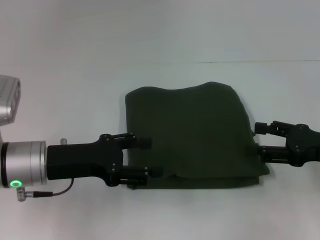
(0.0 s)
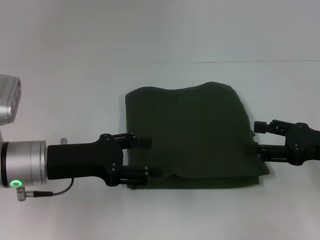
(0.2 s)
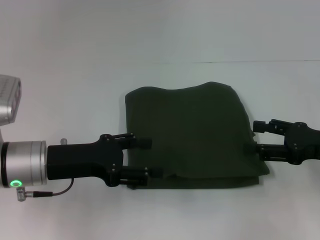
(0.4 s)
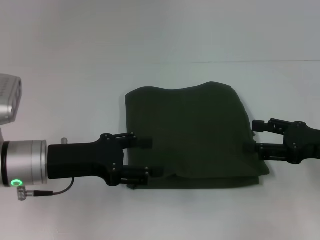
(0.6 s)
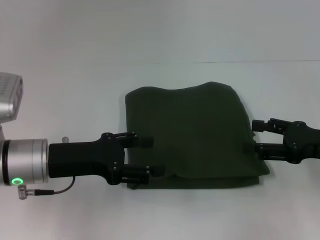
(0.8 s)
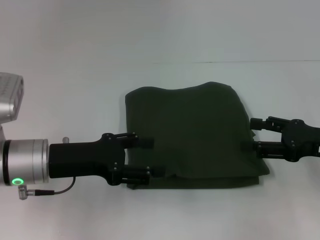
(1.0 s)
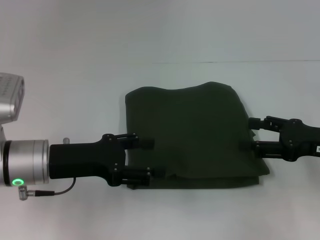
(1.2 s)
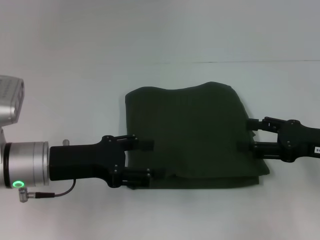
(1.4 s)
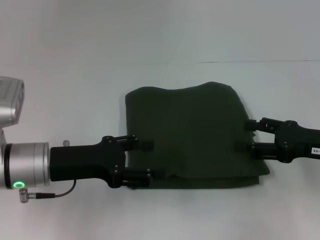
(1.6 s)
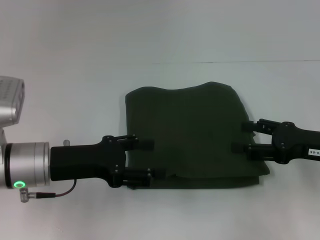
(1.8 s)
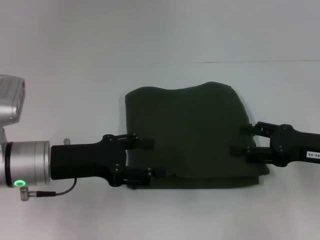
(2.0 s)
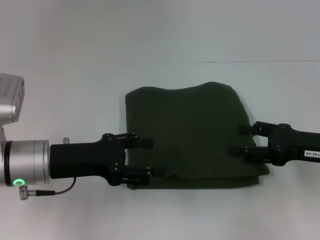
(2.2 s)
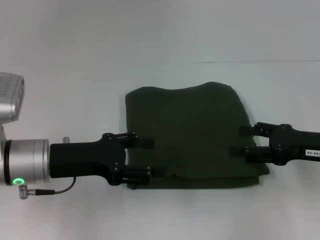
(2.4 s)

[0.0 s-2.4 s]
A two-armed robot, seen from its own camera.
0.0 to 1.2 s: Both grippers stay put.
1.2 to 2.4 s: The grippers stay close to where they were, moving slightly.

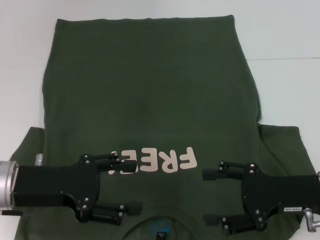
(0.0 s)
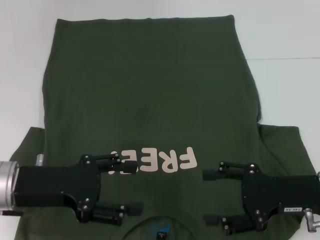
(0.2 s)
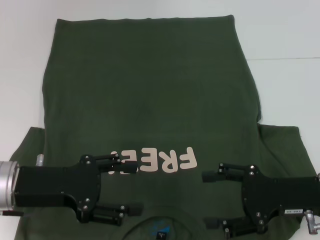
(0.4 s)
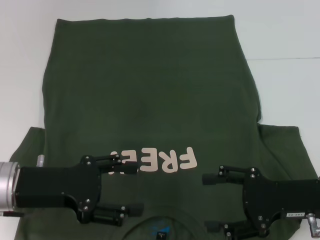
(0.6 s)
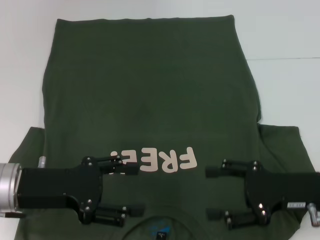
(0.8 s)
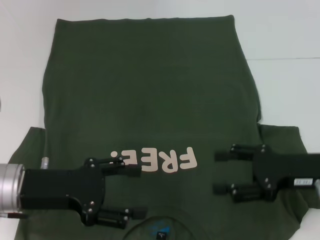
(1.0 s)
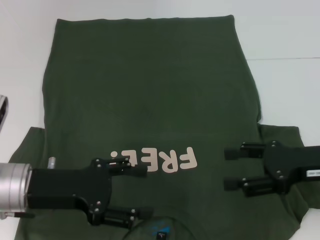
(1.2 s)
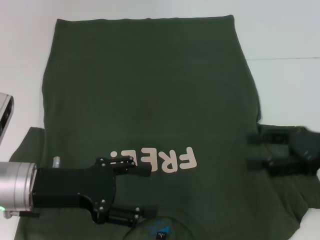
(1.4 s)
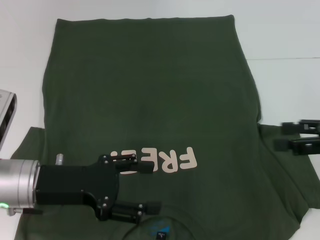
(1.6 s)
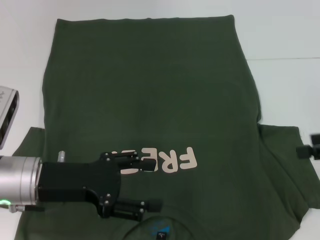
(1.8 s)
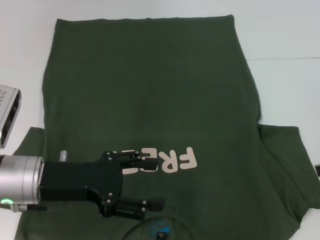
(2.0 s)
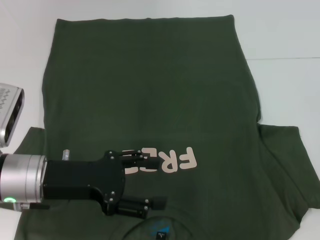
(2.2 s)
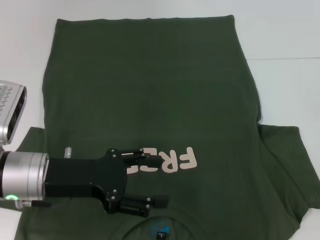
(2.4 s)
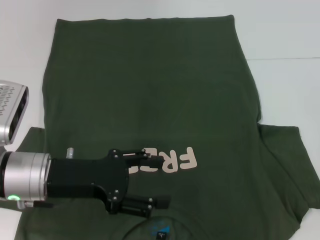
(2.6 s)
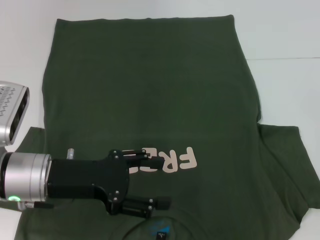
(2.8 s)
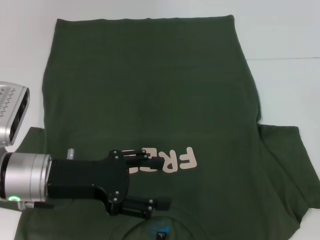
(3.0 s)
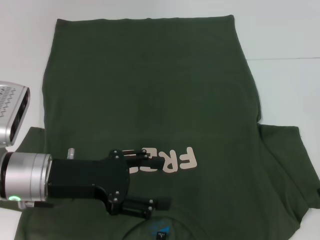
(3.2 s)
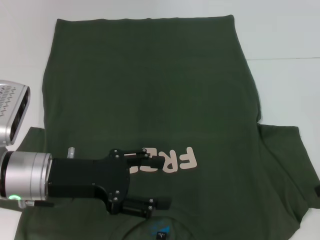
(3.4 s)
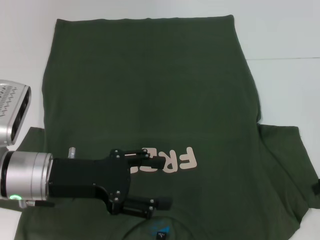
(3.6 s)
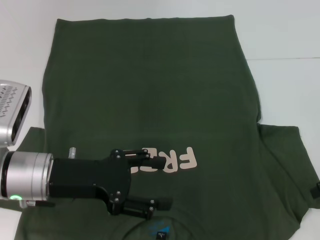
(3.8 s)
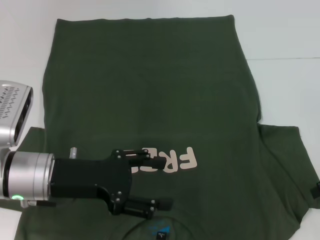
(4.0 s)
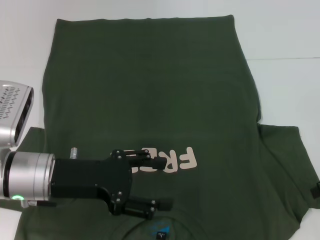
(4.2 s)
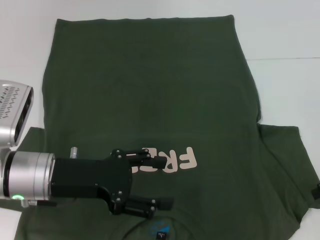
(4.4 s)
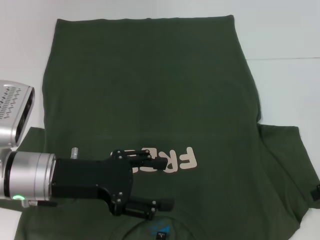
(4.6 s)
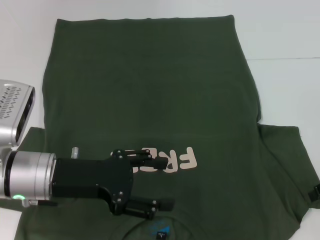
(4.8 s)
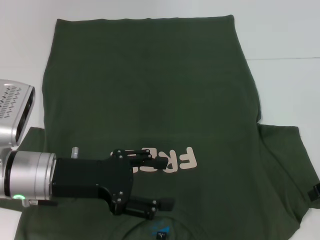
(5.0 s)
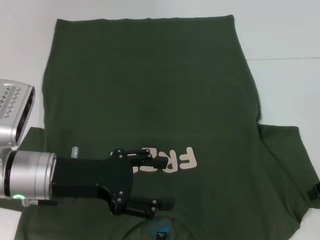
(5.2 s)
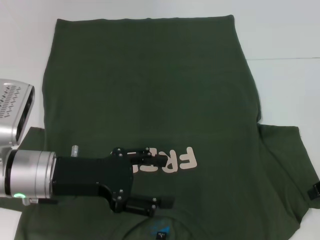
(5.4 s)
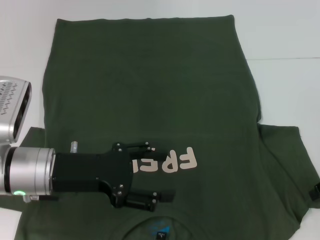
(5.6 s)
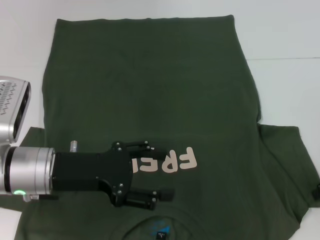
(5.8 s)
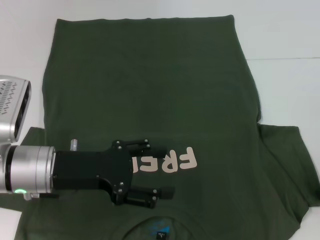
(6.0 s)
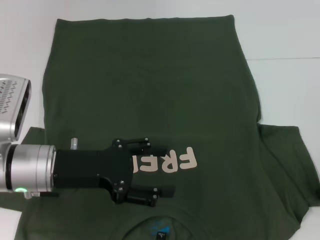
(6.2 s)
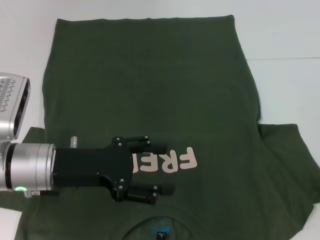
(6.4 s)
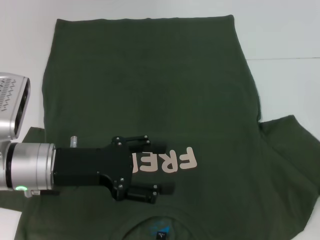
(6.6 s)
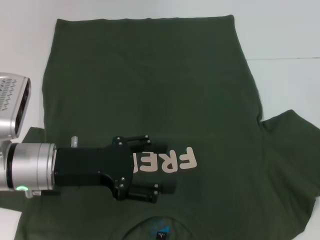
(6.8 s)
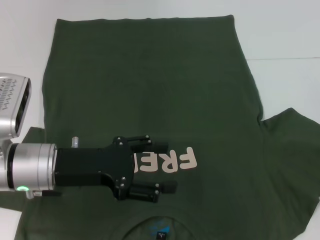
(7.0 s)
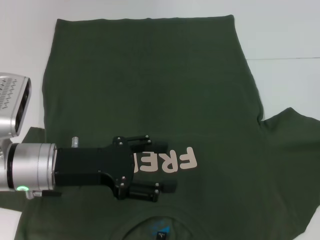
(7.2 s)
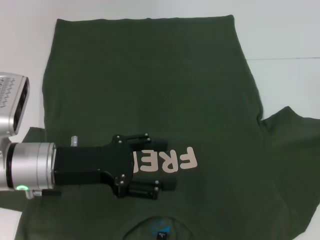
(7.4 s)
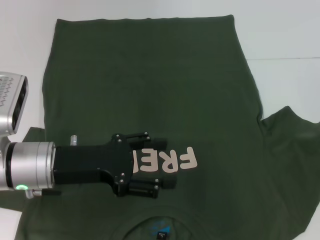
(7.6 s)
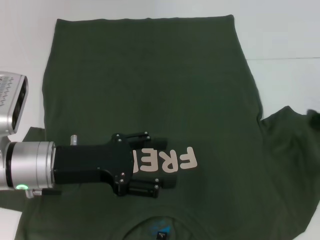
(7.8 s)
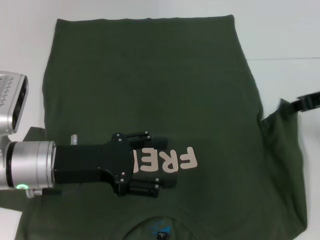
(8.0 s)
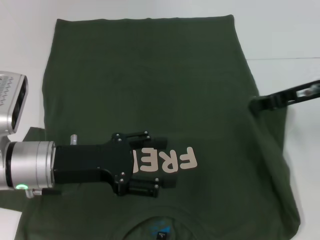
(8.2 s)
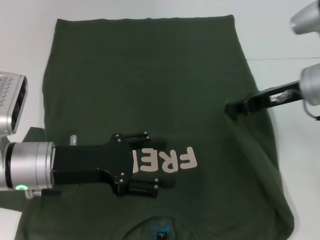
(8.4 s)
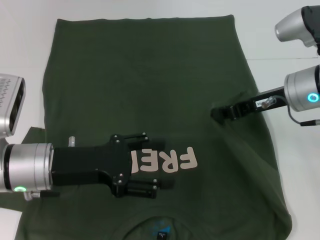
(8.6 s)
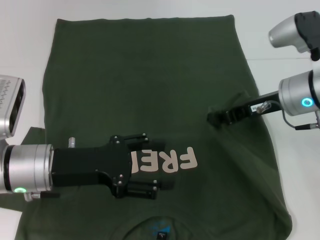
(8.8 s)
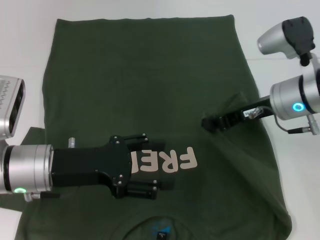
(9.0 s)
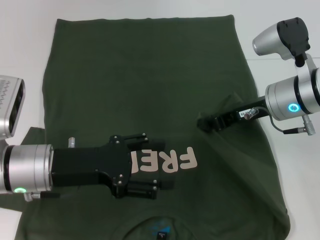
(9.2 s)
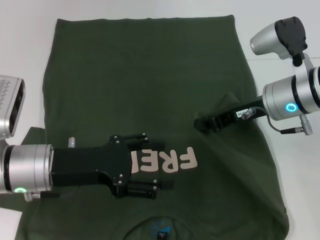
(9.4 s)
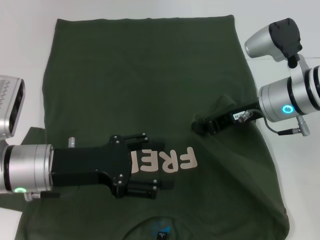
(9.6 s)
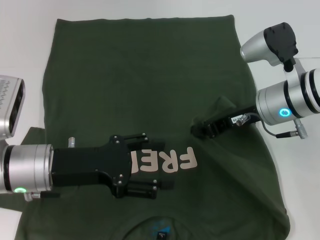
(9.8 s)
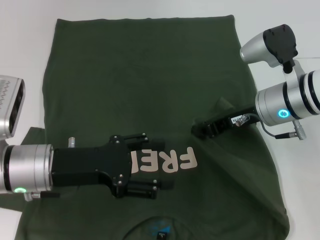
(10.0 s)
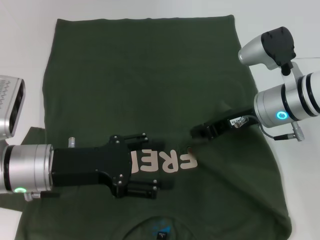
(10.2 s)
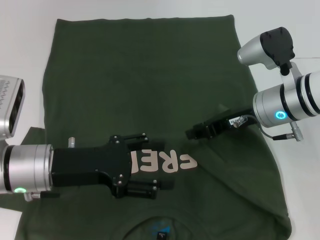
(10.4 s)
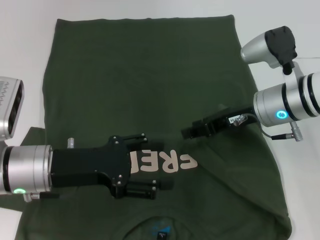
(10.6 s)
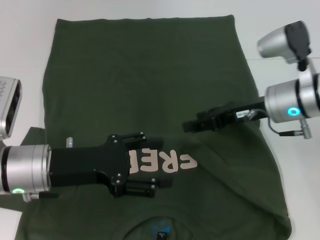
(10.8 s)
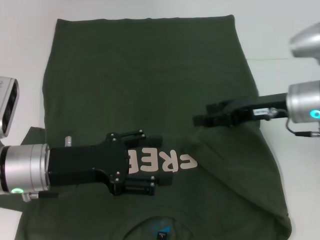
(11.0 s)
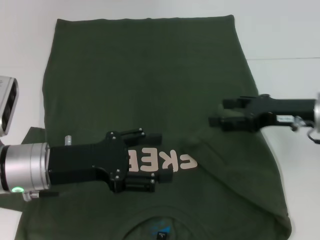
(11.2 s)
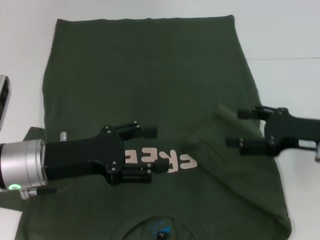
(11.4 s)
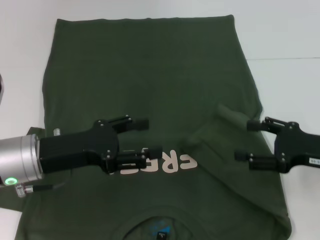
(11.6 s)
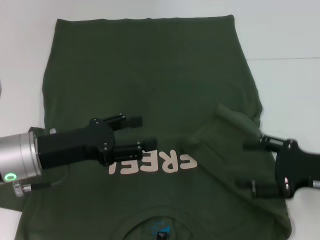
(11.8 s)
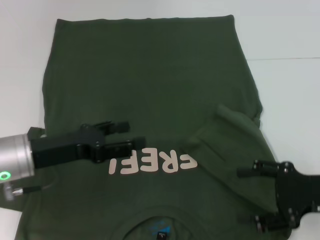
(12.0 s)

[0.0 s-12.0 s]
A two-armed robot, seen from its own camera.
Step, 0.0 to 11.0 s: Fold the bottom right sleeve with your right hand.
0.0 to 1.6 s: The right gripper moves to the right and upward, roughly 10 cm.
3.0 to 4.4 s: The grippers move only a little.
4.4 to 6.0 s: The right gripper closes its fingers.
6.0 to 7.6 s: The right gripper ends up some 5 cm from where it was.
7.6 to 9.0 s: The right gripper is displaced to the left by about 15 cm.
9.0 to 10.4 s: The grippers stay close to where they were, moving slightly.
10.4 to 12.0 s: The right gripper goes approximately 15 cm backward and to the right, and opens its fingers.

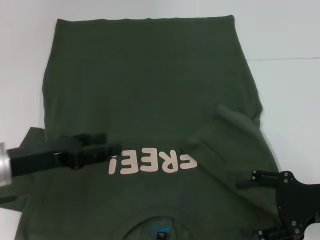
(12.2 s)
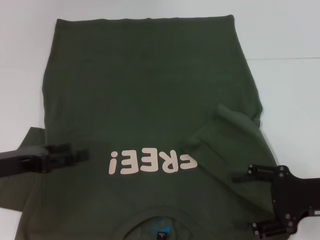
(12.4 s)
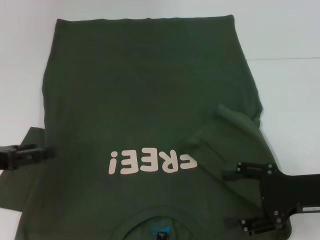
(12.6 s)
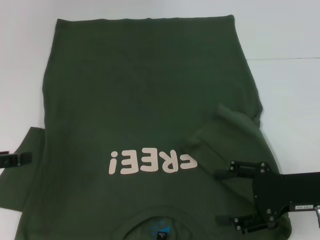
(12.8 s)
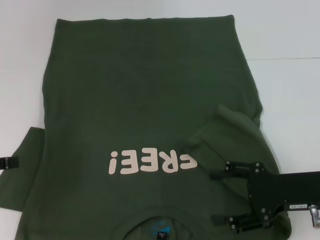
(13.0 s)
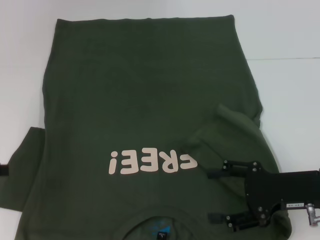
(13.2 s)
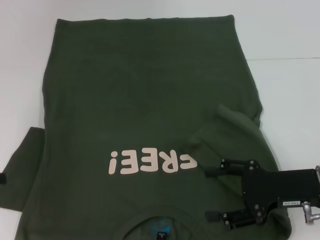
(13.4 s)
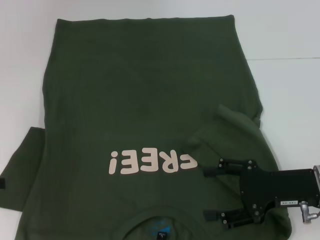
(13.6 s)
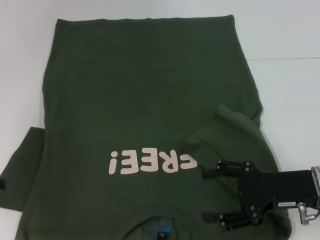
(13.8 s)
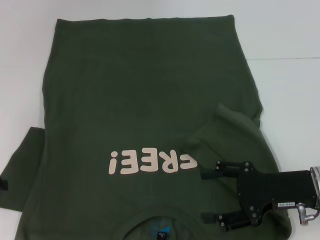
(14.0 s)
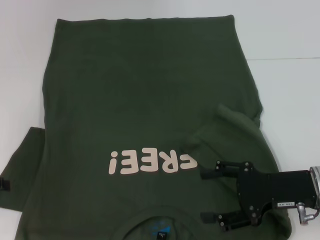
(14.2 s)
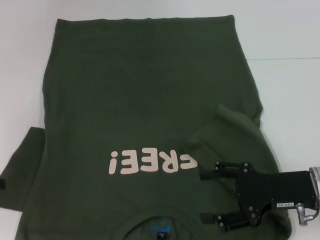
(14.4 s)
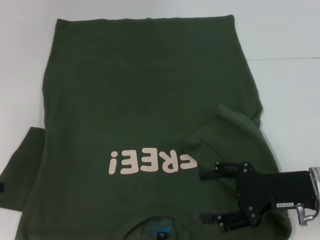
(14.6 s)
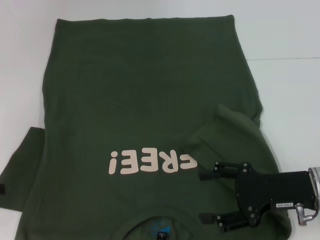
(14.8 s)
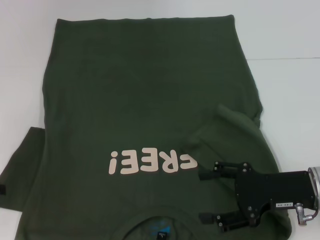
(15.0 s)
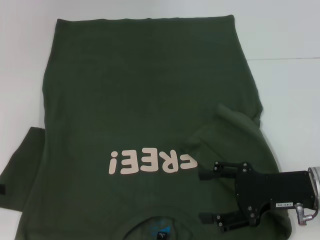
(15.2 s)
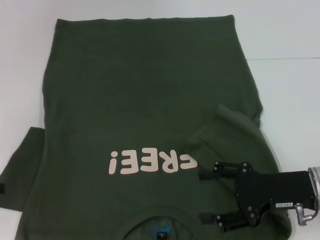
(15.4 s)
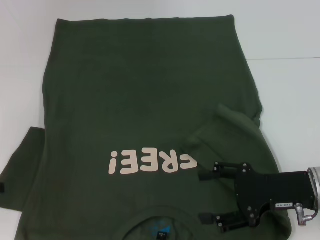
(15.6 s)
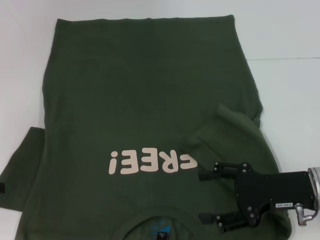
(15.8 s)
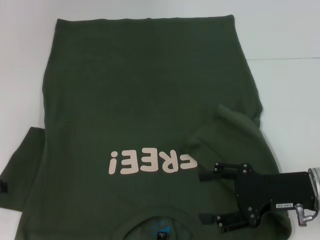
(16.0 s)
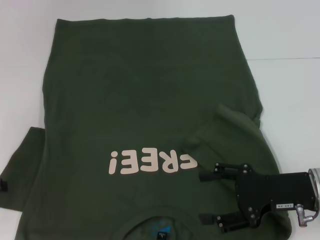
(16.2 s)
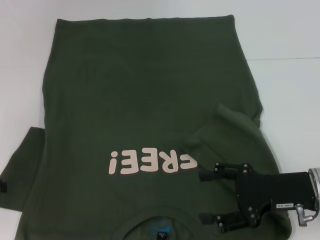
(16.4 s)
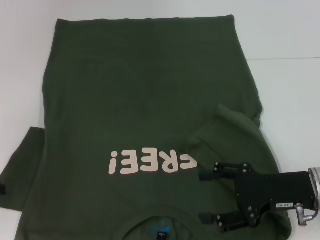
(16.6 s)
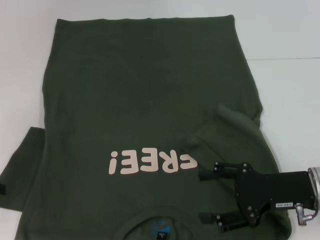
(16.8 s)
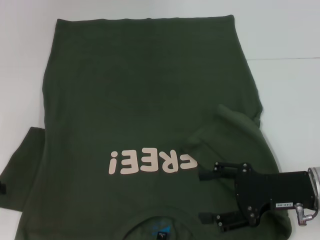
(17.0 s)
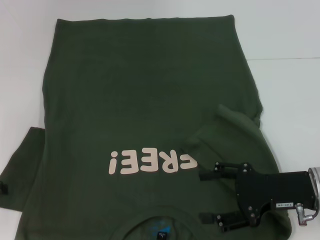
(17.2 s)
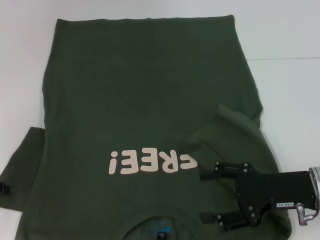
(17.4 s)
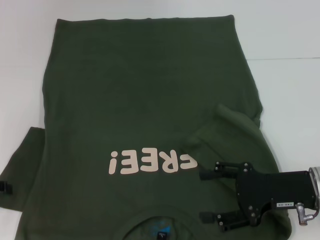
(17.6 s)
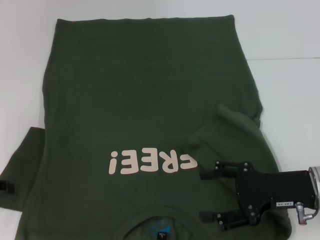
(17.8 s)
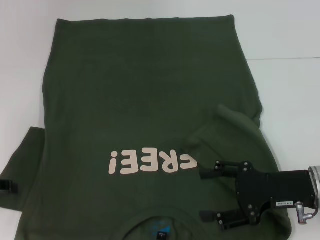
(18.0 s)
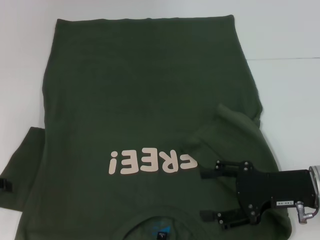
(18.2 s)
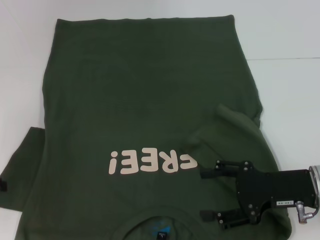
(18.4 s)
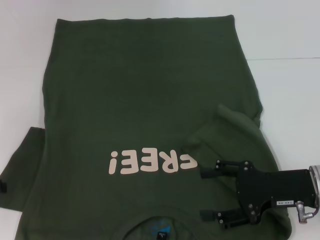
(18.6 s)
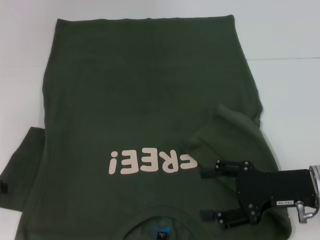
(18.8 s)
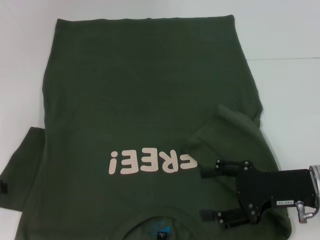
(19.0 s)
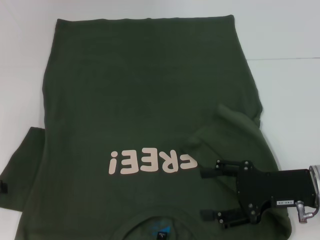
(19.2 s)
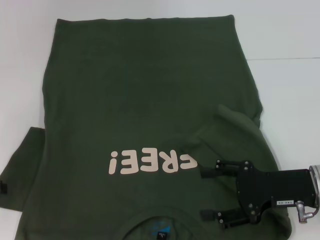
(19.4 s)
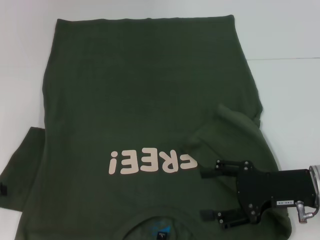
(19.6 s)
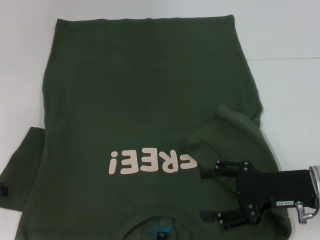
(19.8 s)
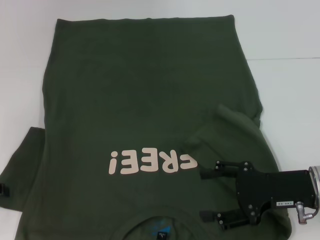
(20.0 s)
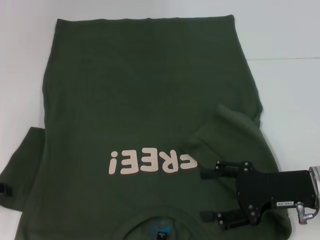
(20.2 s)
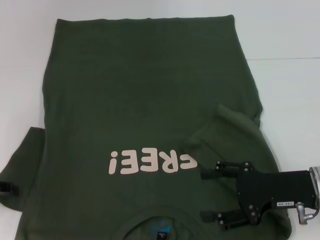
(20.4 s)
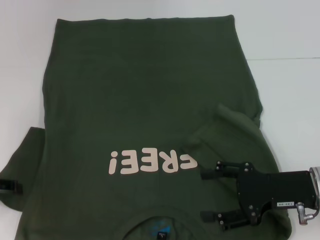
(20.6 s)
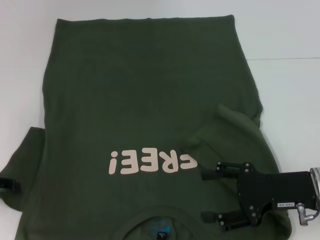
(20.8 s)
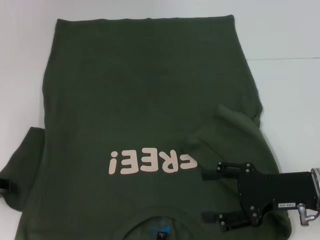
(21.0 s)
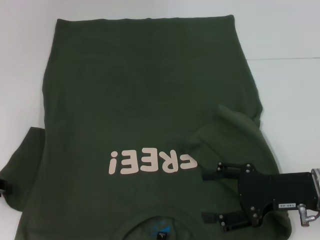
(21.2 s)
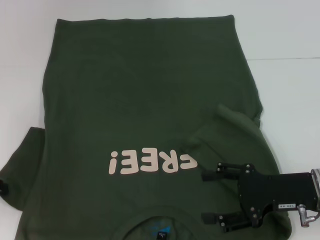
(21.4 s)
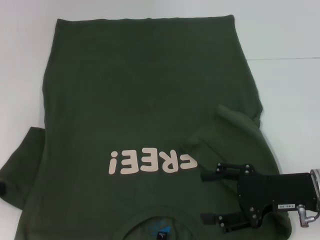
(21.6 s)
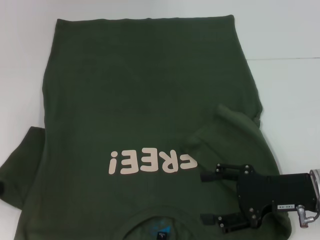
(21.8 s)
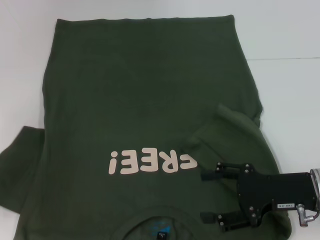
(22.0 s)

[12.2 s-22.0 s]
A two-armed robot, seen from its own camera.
12.2 to 13.6 s: The left gripper moves to the left, some 10 cm; the right gripper changes place by about 5 cm.
13.6 to 15.0 s: The grippers move only a little.
15.0 to 16.4 s: The two grippers keep their place.
16.4 to 19.2 s: Both grippers stay put.
19.2 to 20.6 s: The grippers move only a little.
20.6 to 22.0 s: The left gripper closes up.
